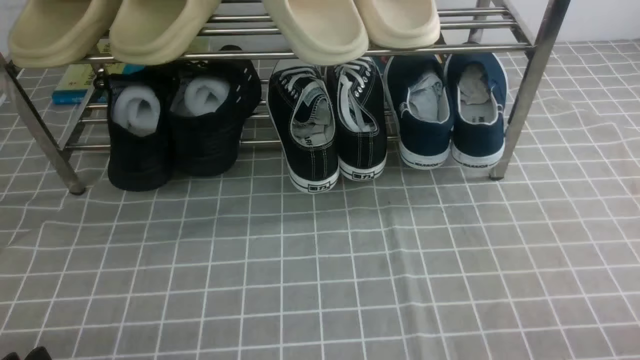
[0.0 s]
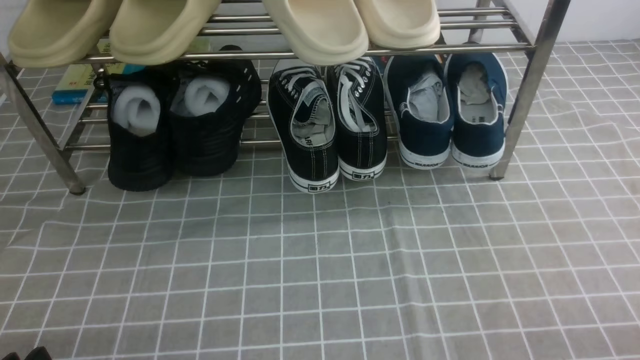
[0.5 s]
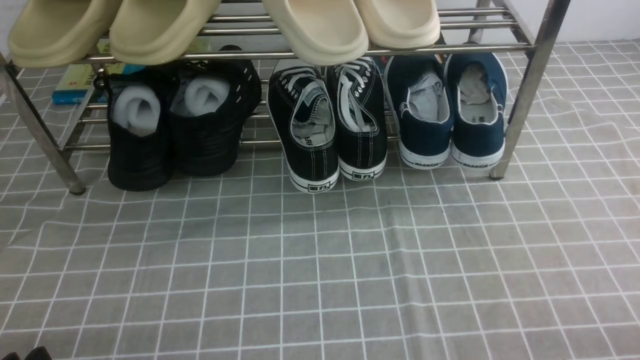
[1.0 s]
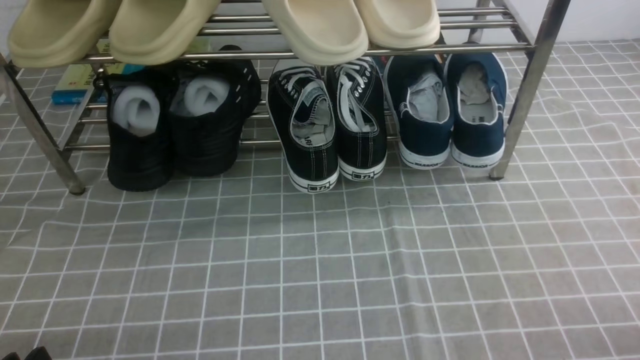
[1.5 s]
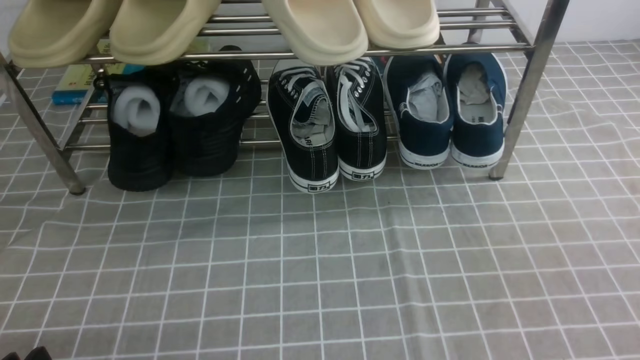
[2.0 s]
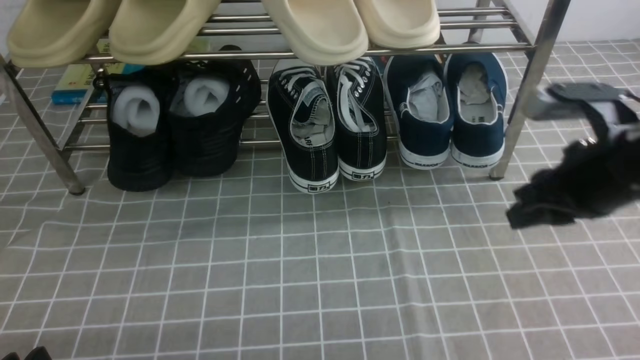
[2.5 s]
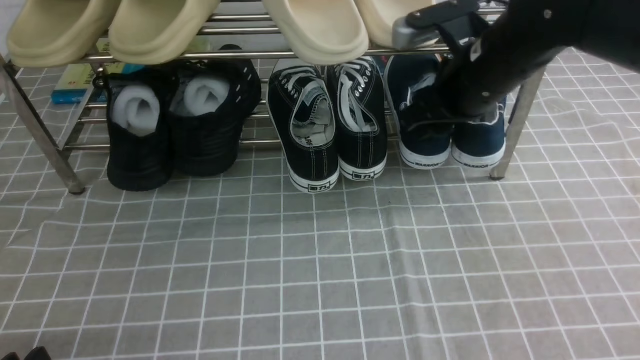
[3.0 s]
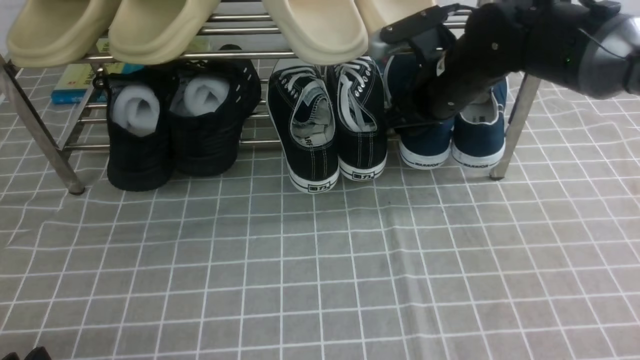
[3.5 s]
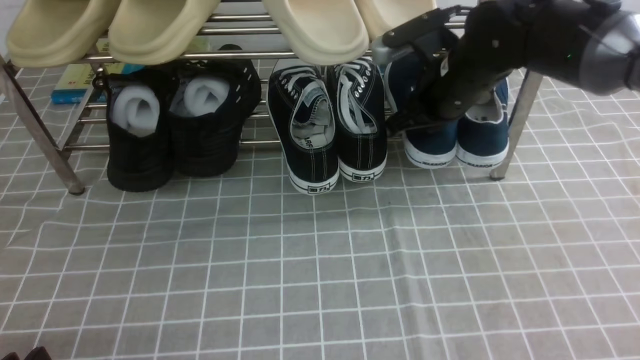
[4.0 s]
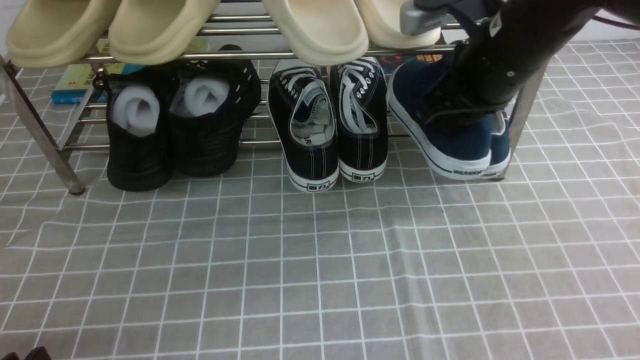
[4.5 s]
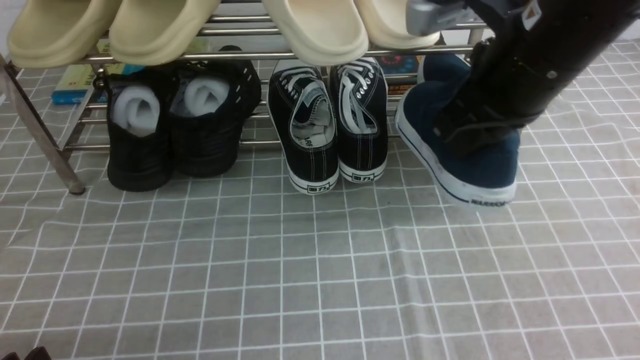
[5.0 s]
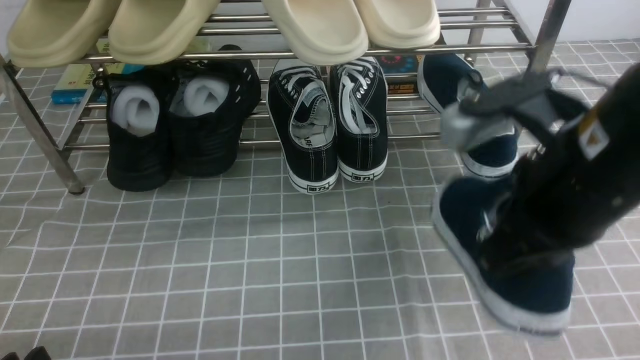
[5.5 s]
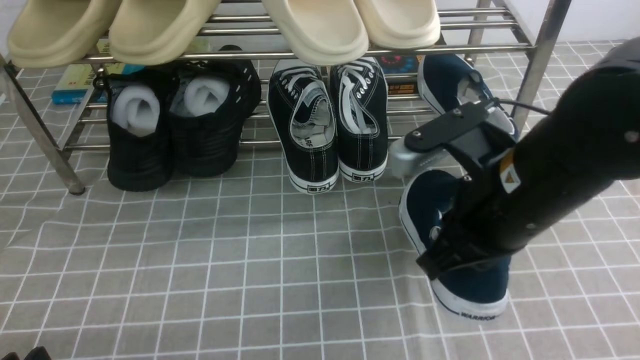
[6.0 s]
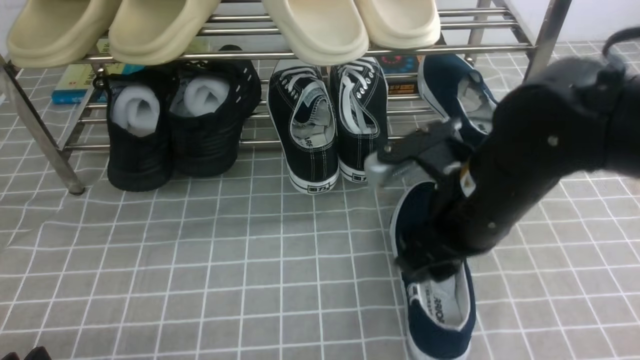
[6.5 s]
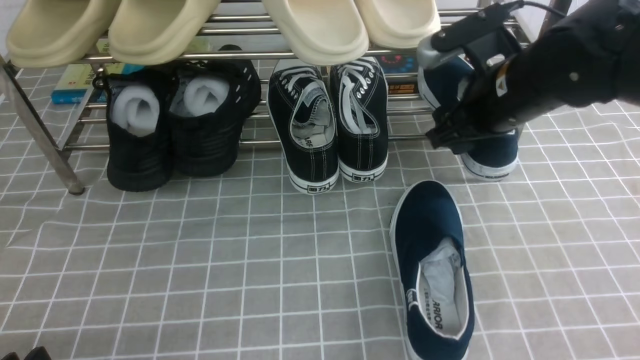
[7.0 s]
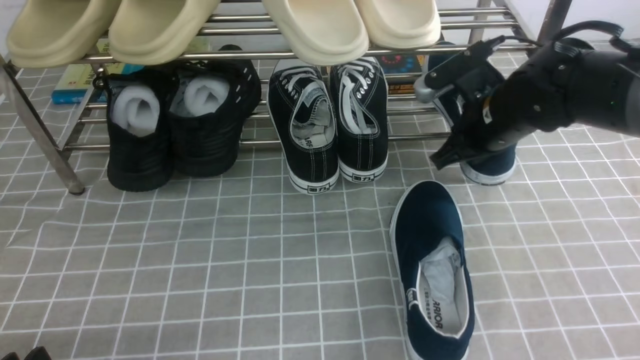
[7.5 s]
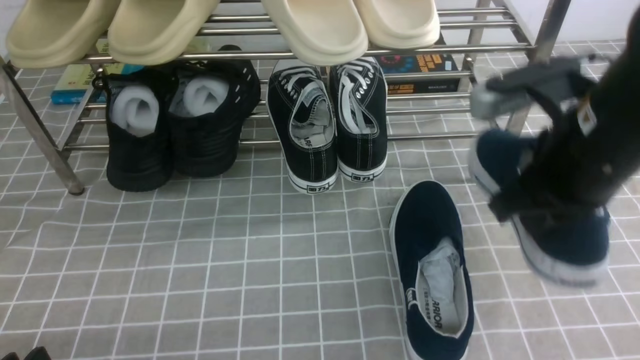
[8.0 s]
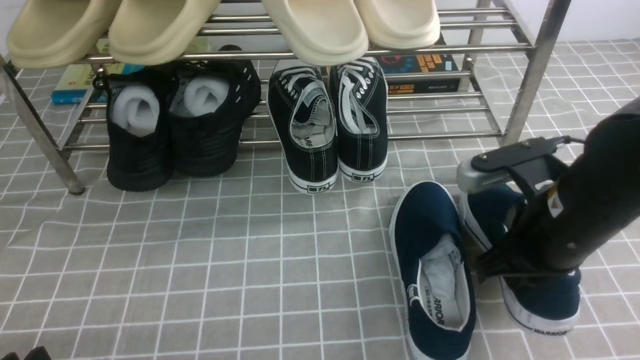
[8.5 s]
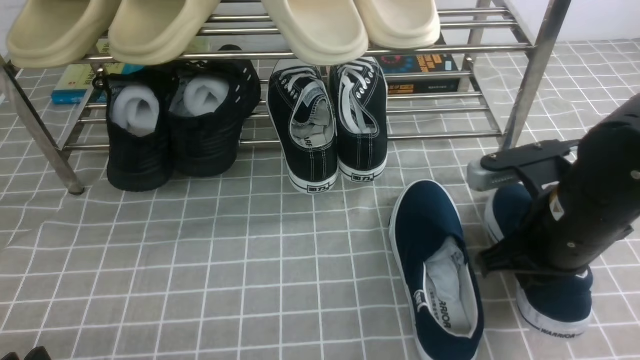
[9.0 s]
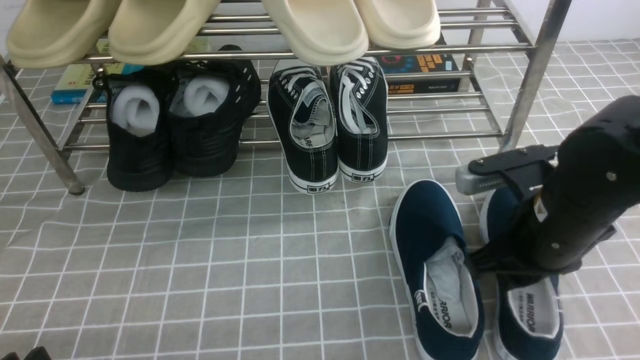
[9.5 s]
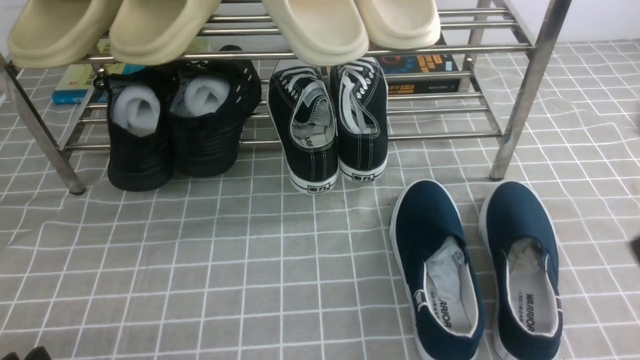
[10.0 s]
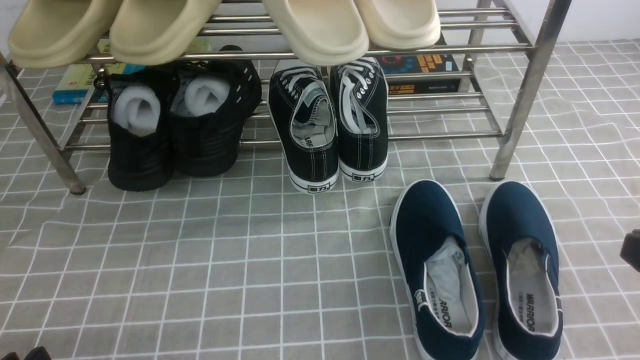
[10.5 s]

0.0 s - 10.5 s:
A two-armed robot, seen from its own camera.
Step, 0.0 s - 4.0 s: use the right arm to clamp a shoe on the right side of the shoe rack.
Step, 4.5 s - 6.5 s: use the right arm to take out the clamped shoe from the shoe rack and put it down.
Step, 7.0 s - 7.5 s: use the right arm to clamp a shoe on the right side of the shoe rack.
Step, 8.0 s - 9.0 s: use the right arm to take out the clamped shoe from the shoe rack and put it down.
2.0 s - 4.0 s: The right gripper is displaced forward and to the left by roughly 40 cm, and opens, then closes once more.
4.0 s - 6.5 s: The right gripper goes roughly 15 cm backward, and opens.
6.5 s - 8.5 s: The right gripper goes about 5 cm to the right, reaches some 15 cm forward, then returns, and closes its fingers.
8.5 s - 10.5 s: The right gripper moves backward and to the right, approximately 15 cm.

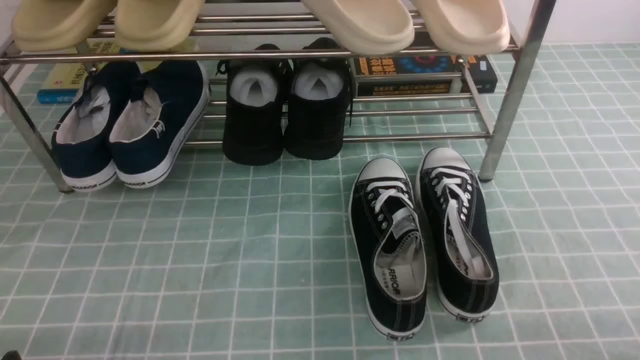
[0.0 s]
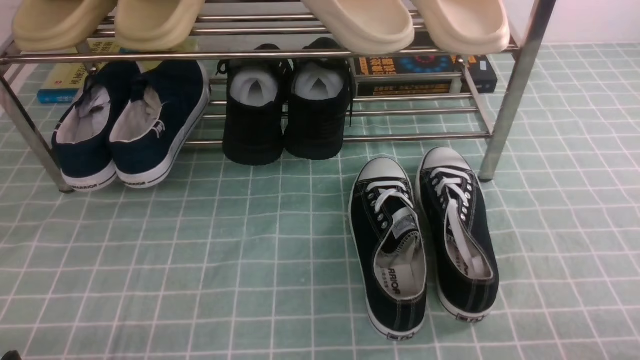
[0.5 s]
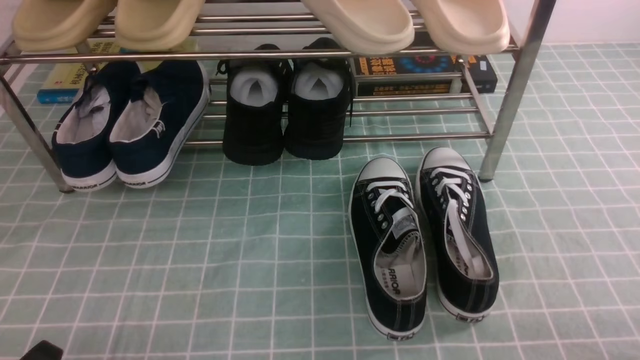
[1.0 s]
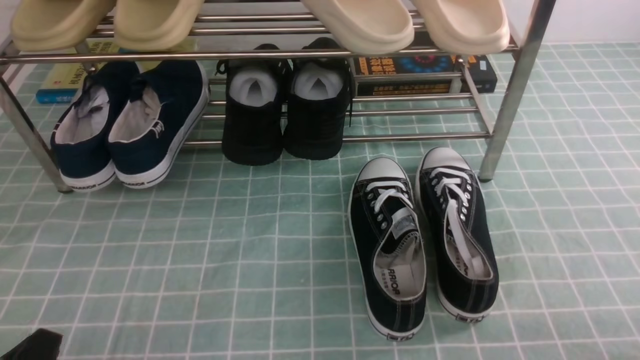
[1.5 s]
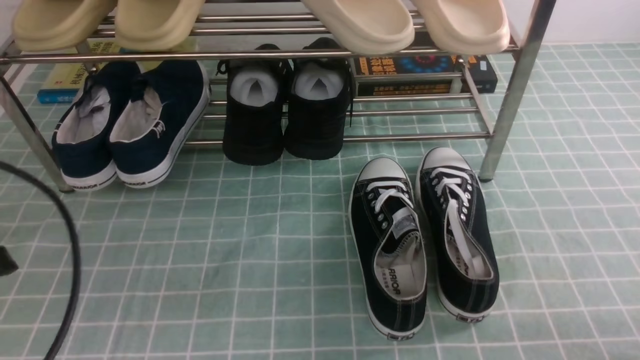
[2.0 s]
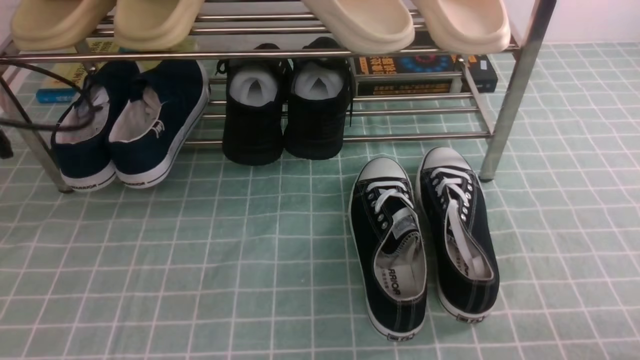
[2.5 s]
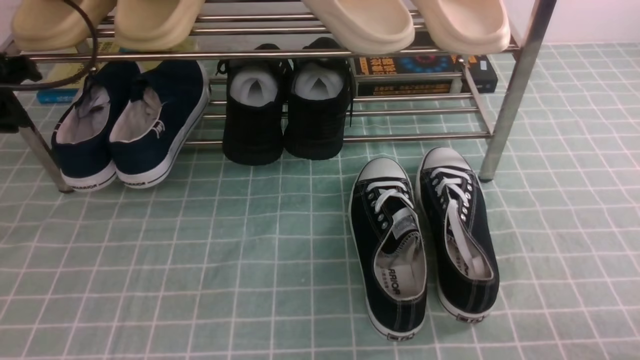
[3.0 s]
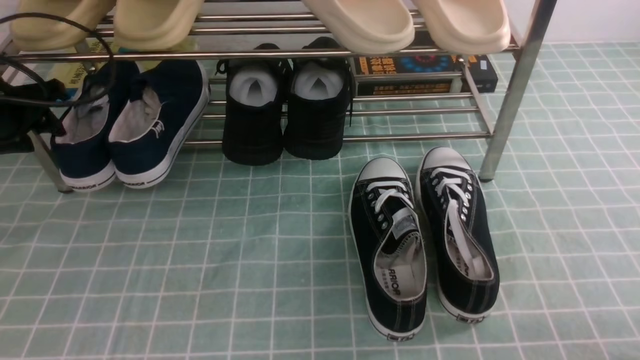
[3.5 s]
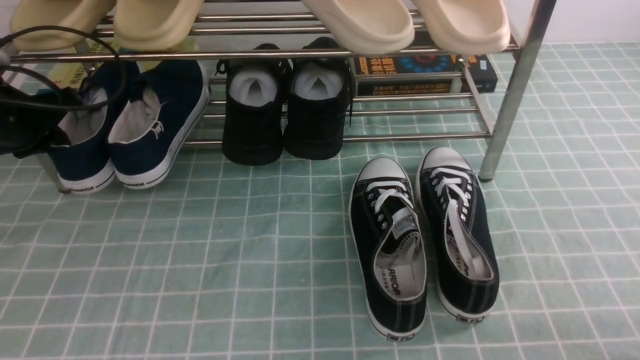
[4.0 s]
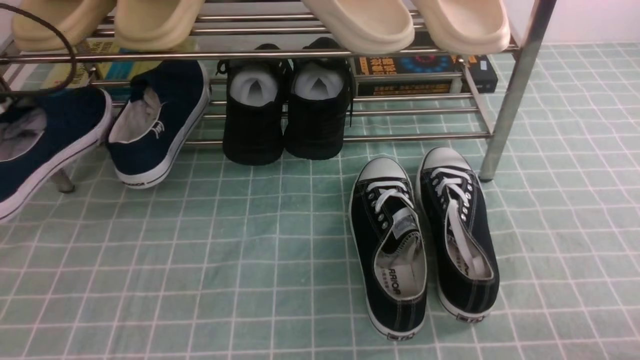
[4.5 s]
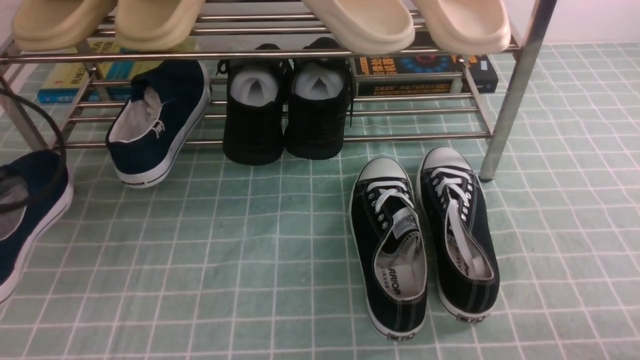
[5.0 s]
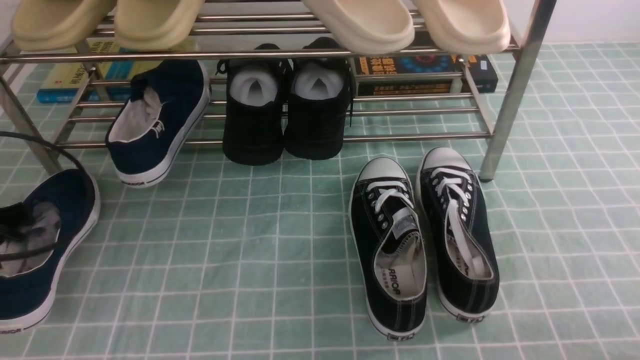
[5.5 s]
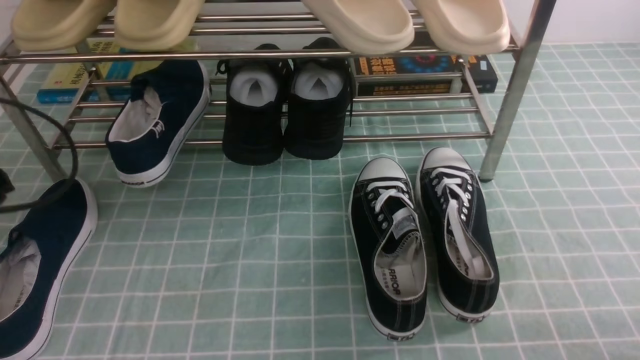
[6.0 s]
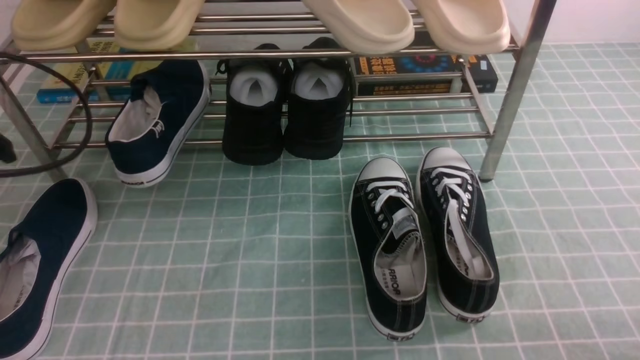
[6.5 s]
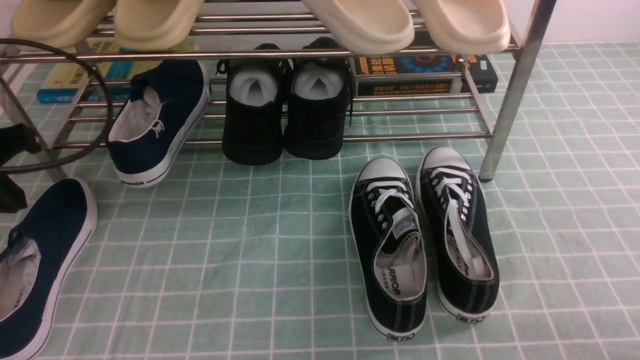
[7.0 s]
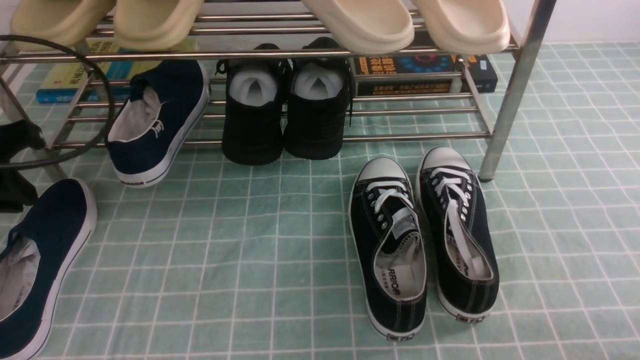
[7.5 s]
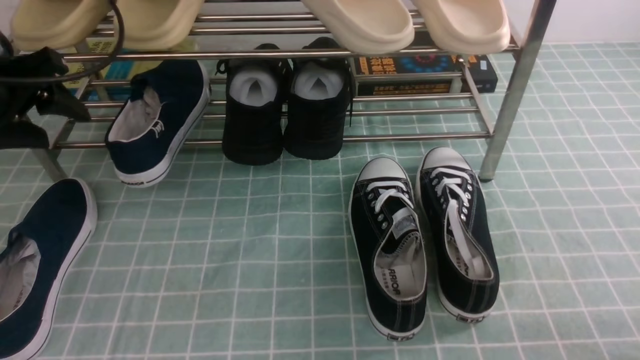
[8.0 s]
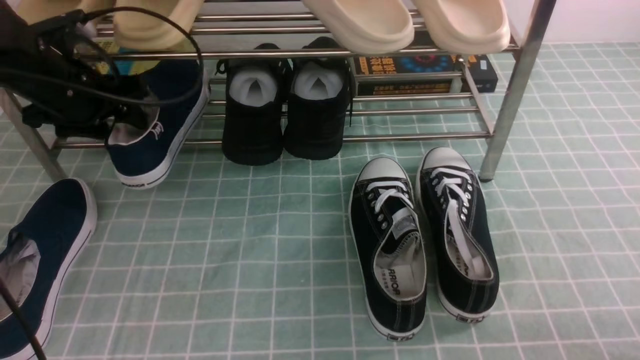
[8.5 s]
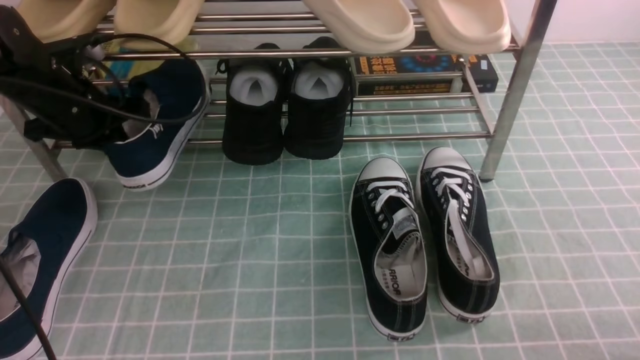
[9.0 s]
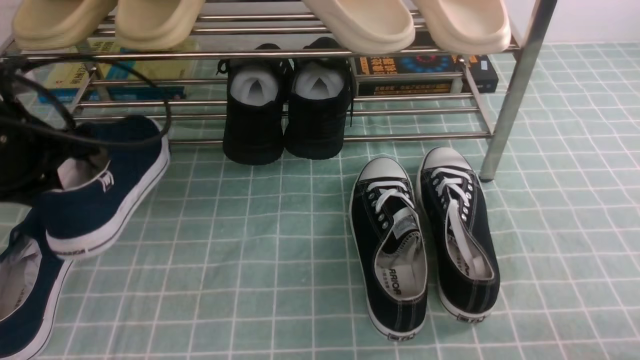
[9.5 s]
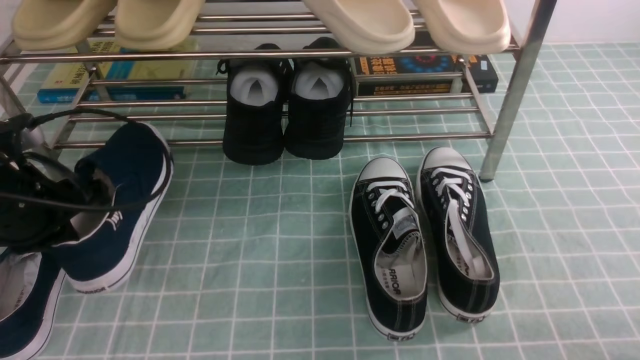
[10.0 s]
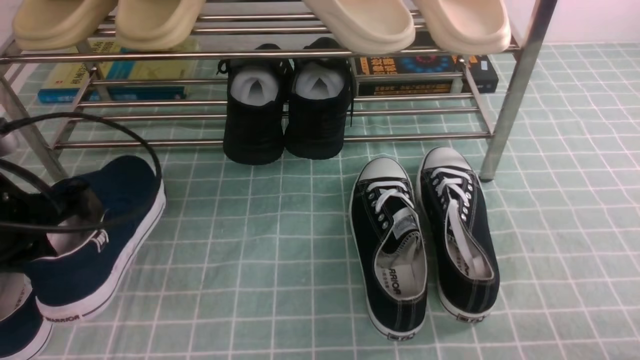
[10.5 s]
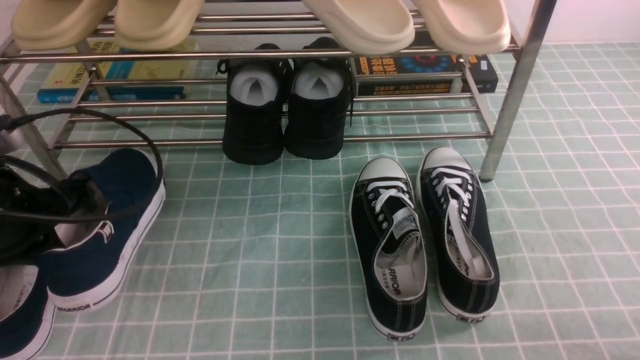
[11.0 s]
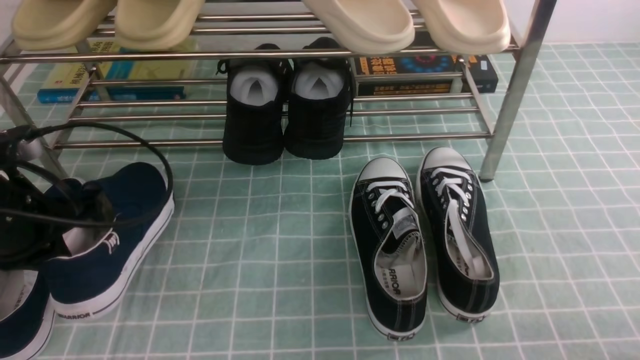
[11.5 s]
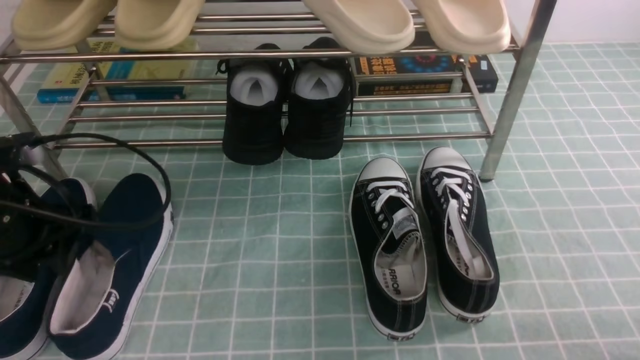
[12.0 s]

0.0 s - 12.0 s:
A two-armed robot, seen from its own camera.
Step, 0.0 s - 3.5 s: use the left arm to clamp a shoe on the left side of the shoe rack.
Step, 4.0 s - 6.0 s: Use your left arm to remove the clamped shoe from the shoe rack and put it down.
Step, 6.5 s - 8.5 s: use the left arm to clamp a shoe on the left side of the shoe rack.
0.0 s - 2.0 s: The left gripper goes approximately 15 cm upward and forward, and closes its fingers.
2.0 s - 4.0 s: The left gripper moves forward, some 25 cm, and opens and closes again.
4.0 s - 6.0 s: The left gripper shifts about 15 cm backward, and opens its fingers.
6.0 s - 8.0 s: The left gripper heads forward, covering roughly 10 cm, and opens up.
8.0 s - 10.0 s: The left gripper goes approximately 10 cm downward and backward, and closes up.
10.0 s - 12.0 s: The left gripper opens.
